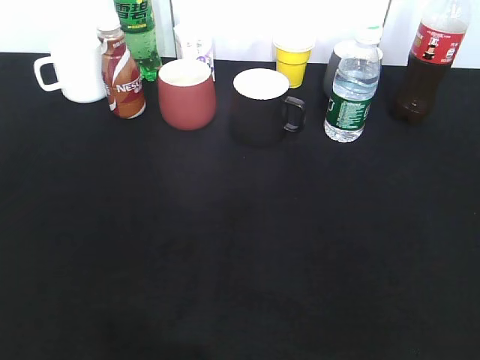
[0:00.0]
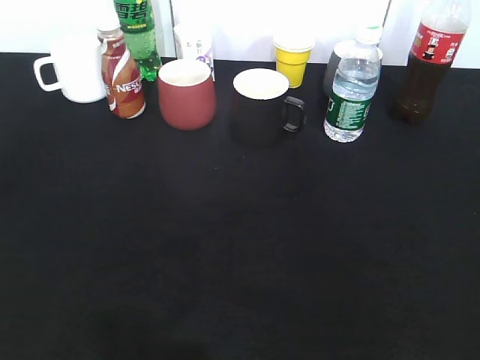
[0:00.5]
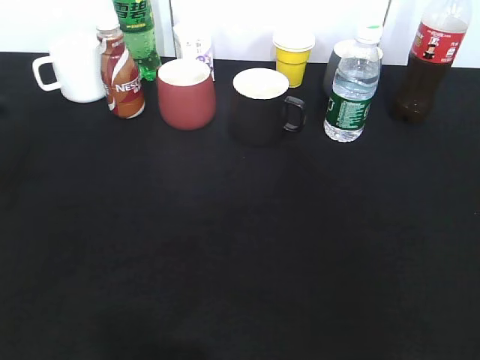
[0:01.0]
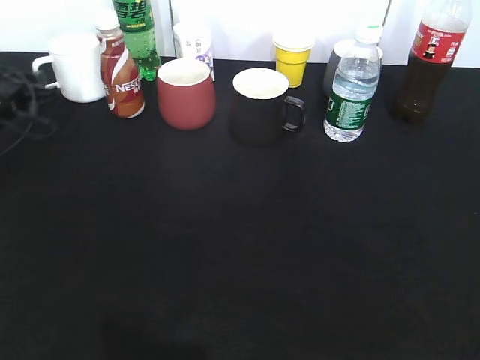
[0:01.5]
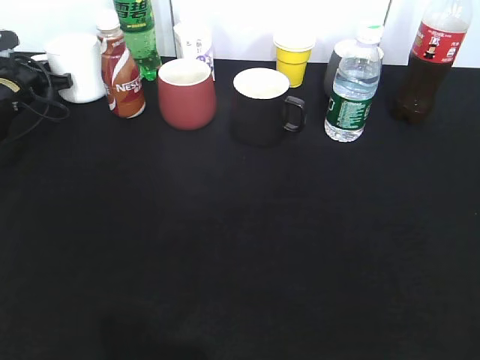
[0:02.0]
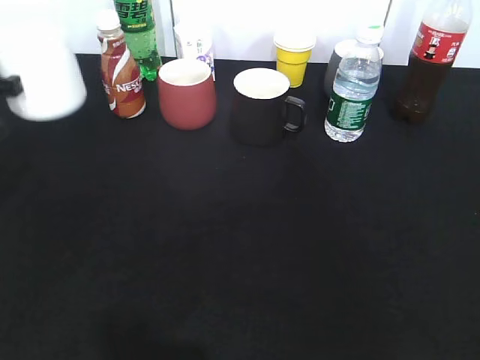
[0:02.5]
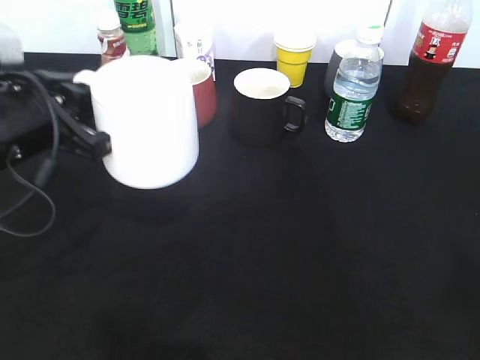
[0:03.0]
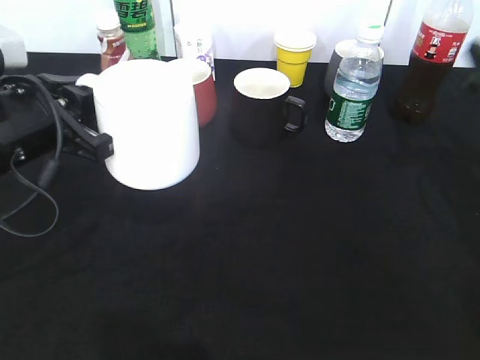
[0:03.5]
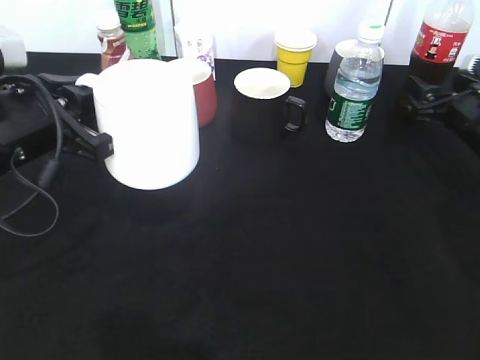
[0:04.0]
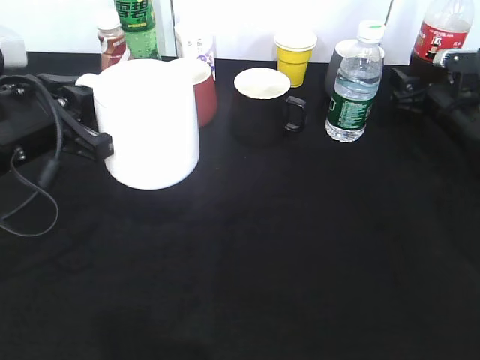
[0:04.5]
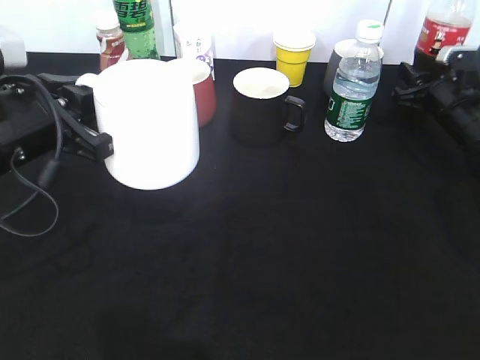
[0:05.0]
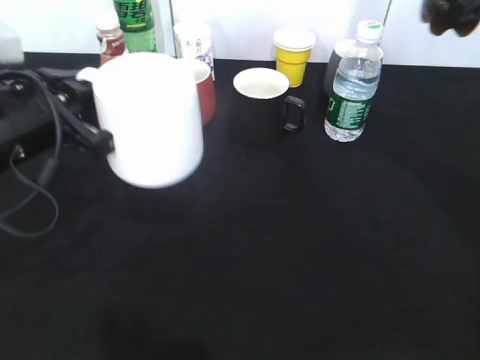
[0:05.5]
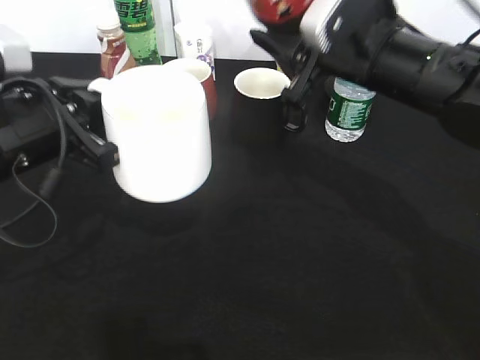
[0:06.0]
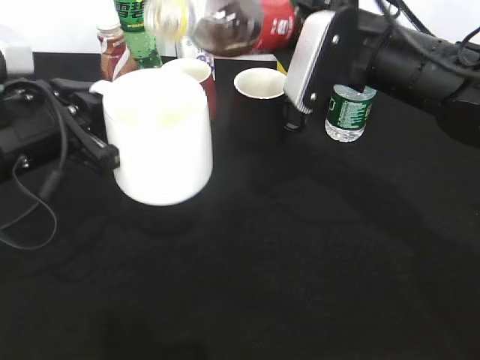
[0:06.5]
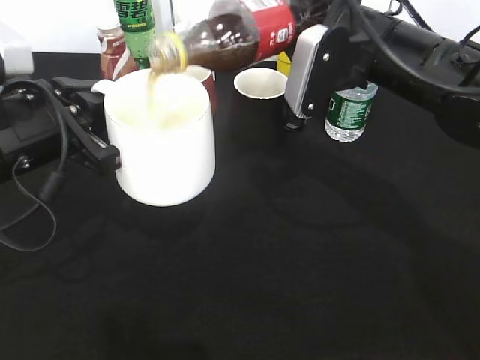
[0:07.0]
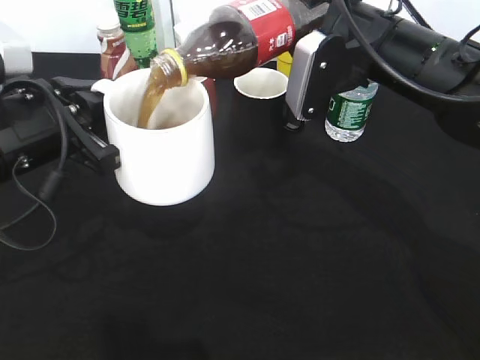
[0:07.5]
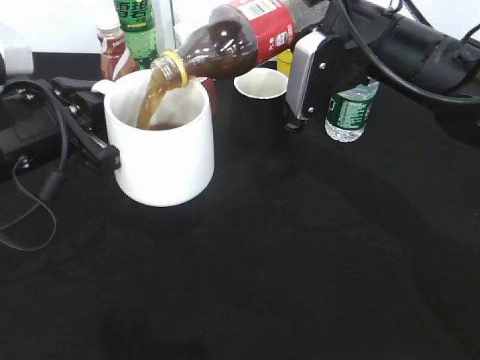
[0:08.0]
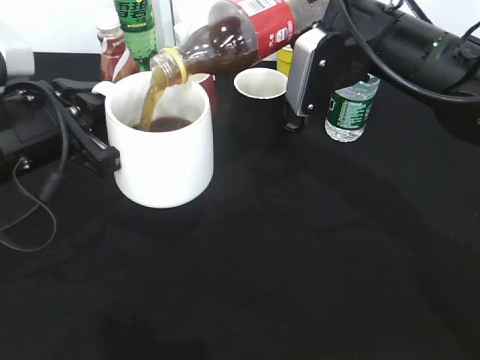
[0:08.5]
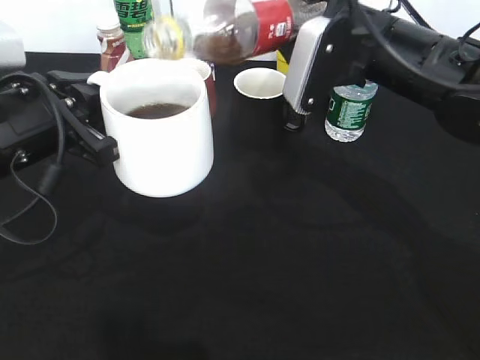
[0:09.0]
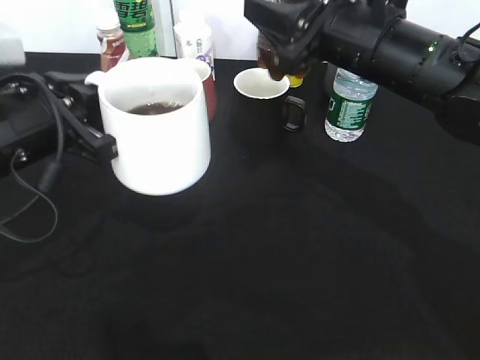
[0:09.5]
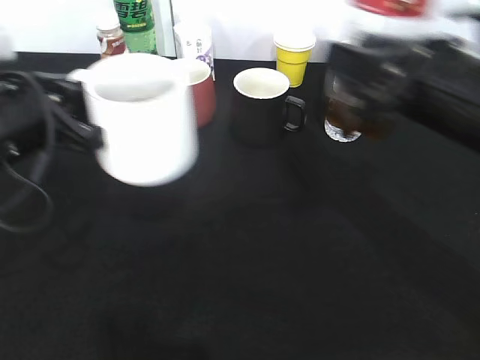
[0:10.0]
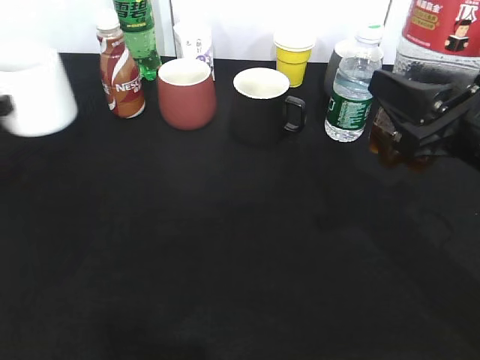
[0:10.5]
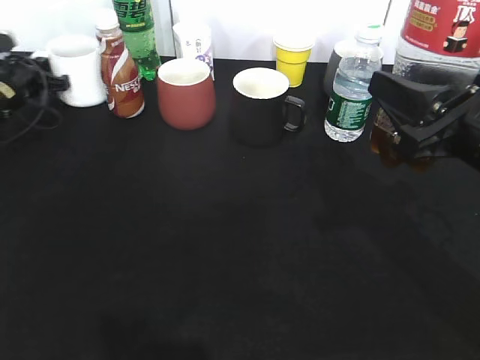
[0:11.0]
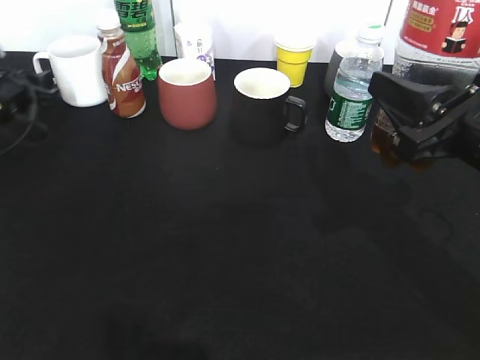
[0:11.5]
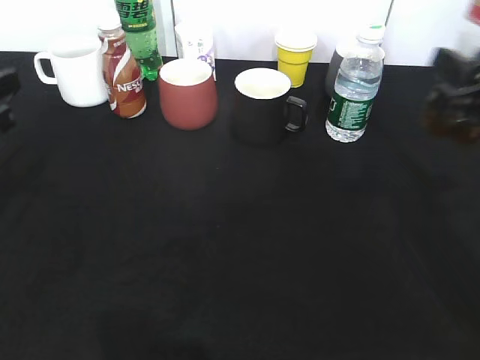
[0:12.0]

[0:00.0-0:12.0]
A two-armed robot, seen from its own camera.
Step, 0:00.0 to 0:01.5: Grasp the white cup with left gripper.
Step, 0:02.0 to 0:03.0: Lift the white cup with left gripper.
Step, 0:03.5 to 0:04.5: Grasp the bottle with cola with right gripper.
Step, 0:05.5 to 0:09.0: Pour the cola from bottle to cup with right gripper.
Step, 0:09.5 to 0:11.5: Place the white cup on the table with left gripper.
0:00.0 to 0:02.0: The left gripper goes about 50 cm forward, and closes up.
0:02.0 to 0:04.0: The right gripper shifts approximately 40 cm forward and downward. The left gripper is displaced backward, to the right and upward by roughly 30 cm.
0:04.0 to 0:06.0: The right gripper heads to the left and upward, covering some 20 cm, and closes its fingers.
0:08.0 to 0:10.0: The right gripper moves backward and to the right, some 10 cm.
0:10.0 to 0:12.0: The right gripper is displaced to the right by about 5 cm. The left gripper shifts some 10 cm to the left, goes forward and returns, some 25 cm each way, and opens up.

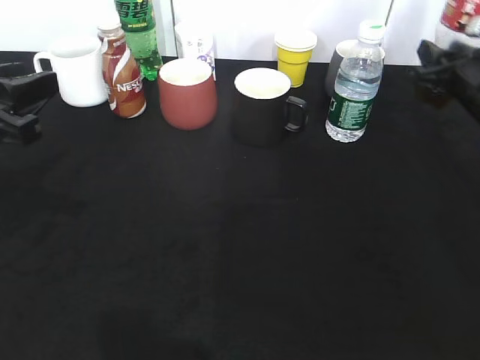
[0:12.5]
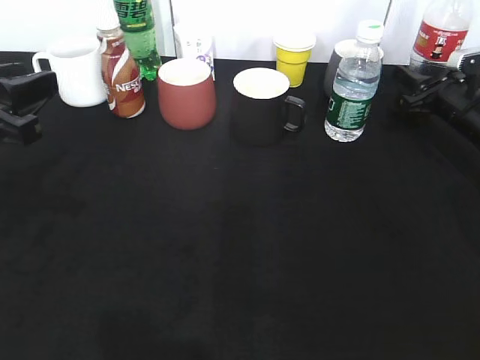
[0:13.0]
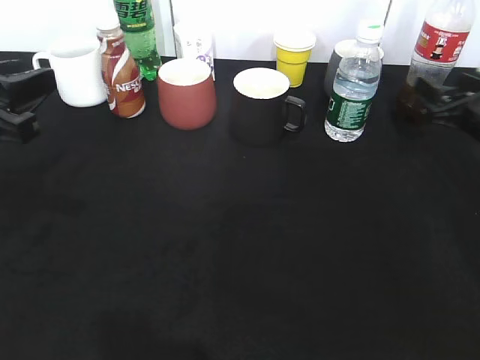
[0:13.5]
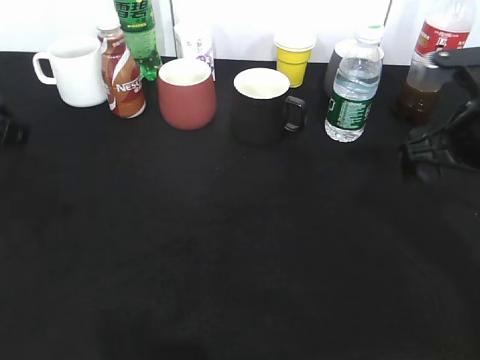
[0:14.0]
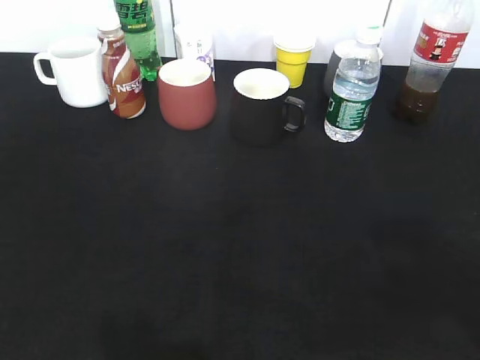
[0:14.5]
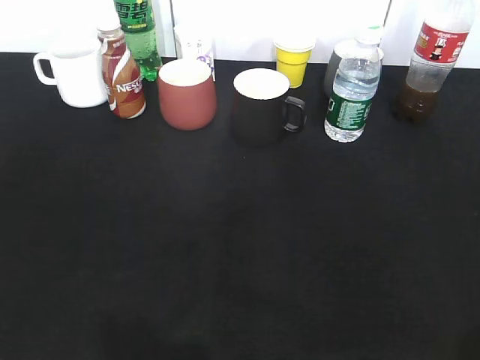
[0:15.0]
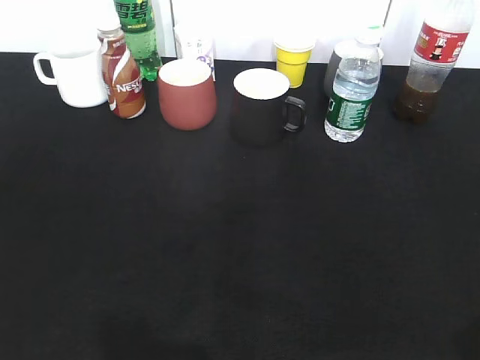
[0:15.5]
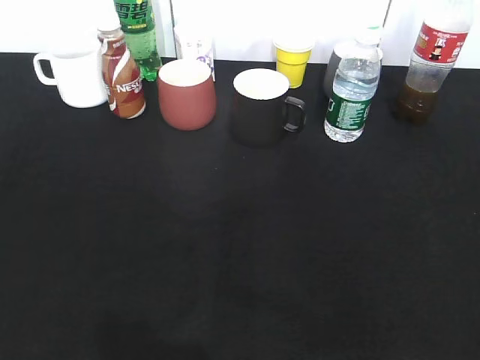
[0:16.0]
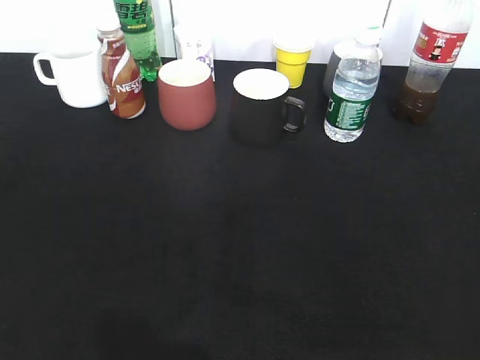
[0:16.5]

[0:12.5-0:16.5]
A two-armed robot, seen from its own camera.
Step, 0:12.5 to 0:14.0: Place the cola bottle on the table with right gripper.
0:12.5 to 0:14.5: The right gripper is displaced backward and upward by roughly 40 cm, and opens; the left gripper heads backward and upward, covering approximately 20 cm.

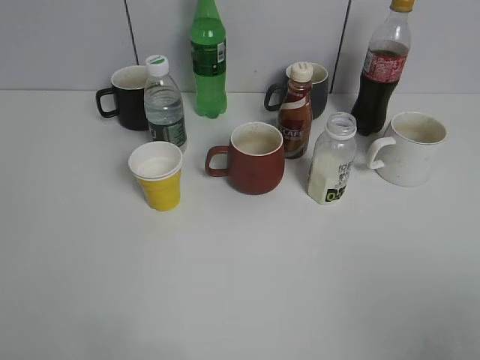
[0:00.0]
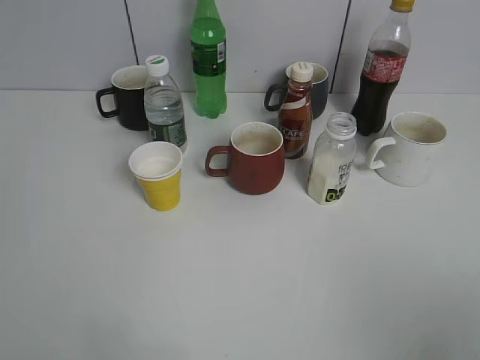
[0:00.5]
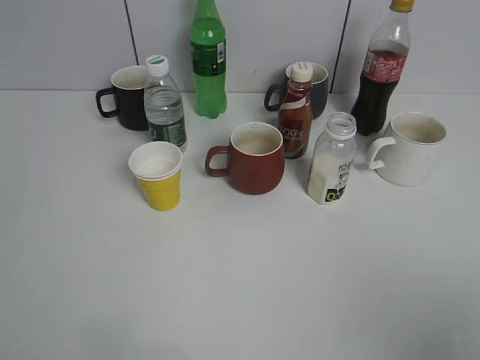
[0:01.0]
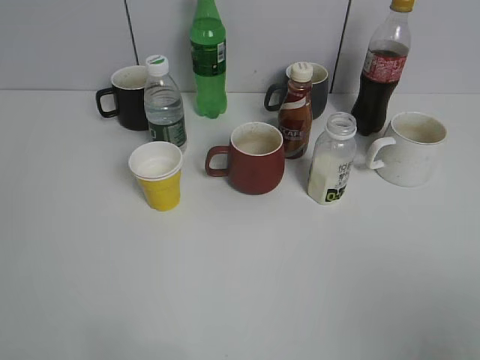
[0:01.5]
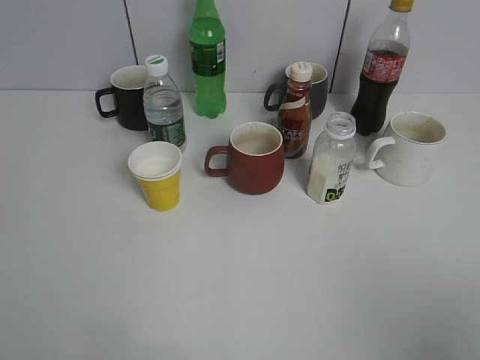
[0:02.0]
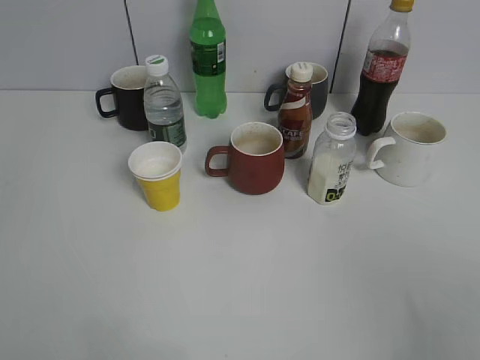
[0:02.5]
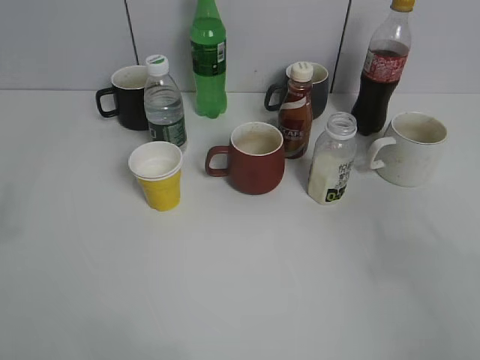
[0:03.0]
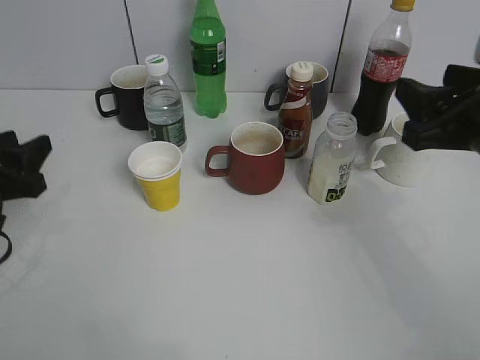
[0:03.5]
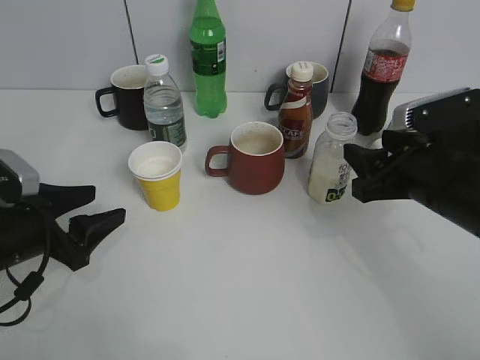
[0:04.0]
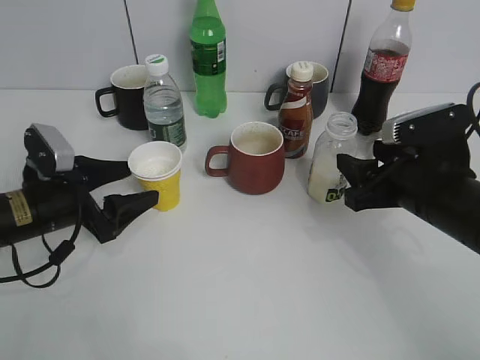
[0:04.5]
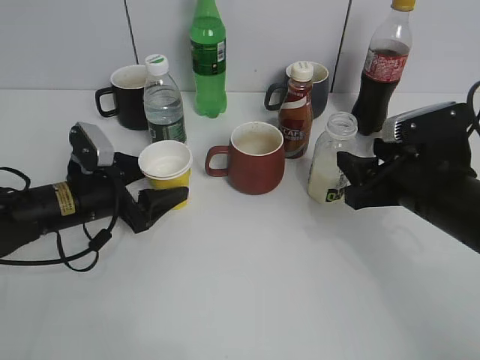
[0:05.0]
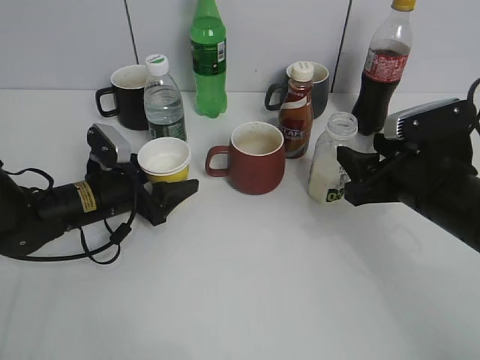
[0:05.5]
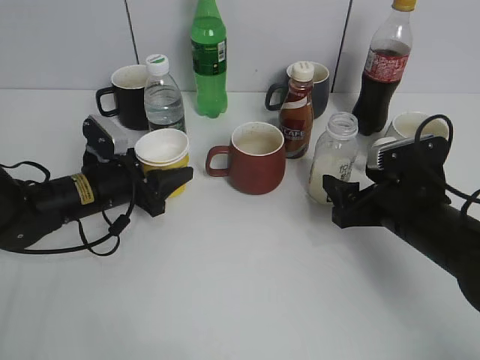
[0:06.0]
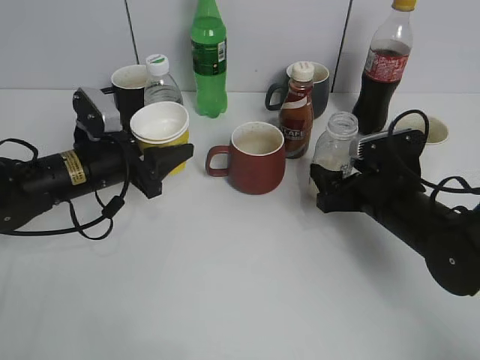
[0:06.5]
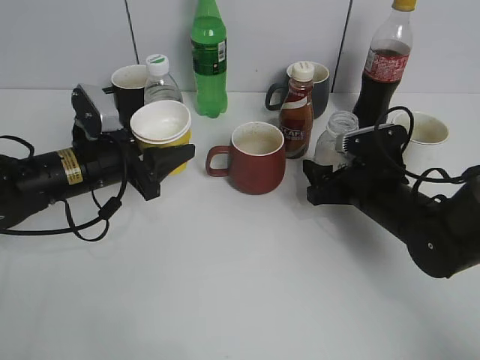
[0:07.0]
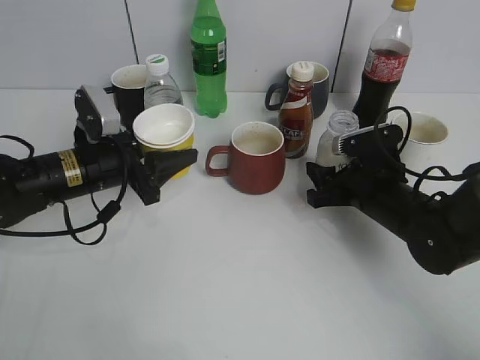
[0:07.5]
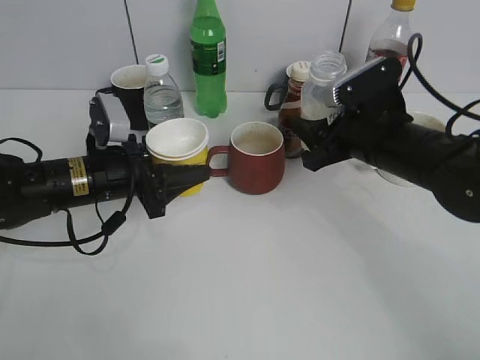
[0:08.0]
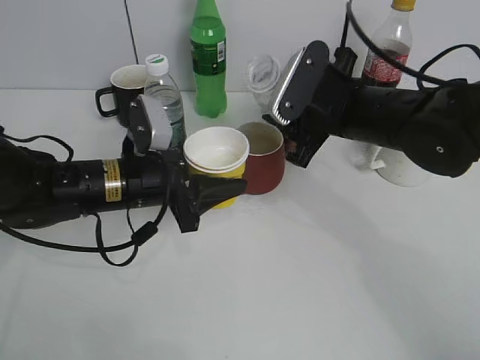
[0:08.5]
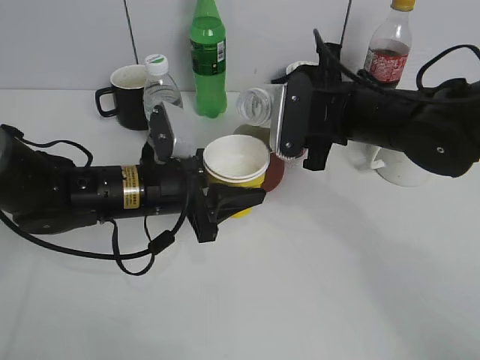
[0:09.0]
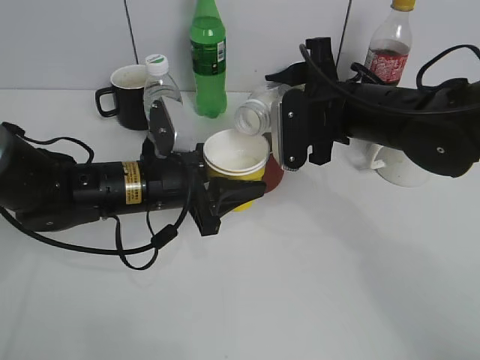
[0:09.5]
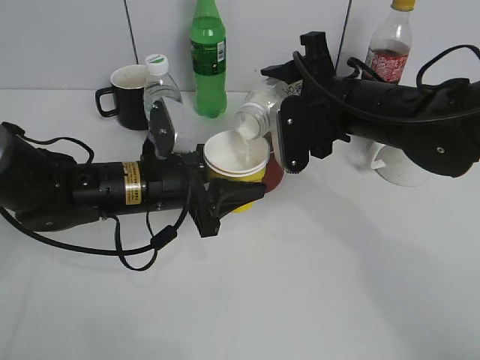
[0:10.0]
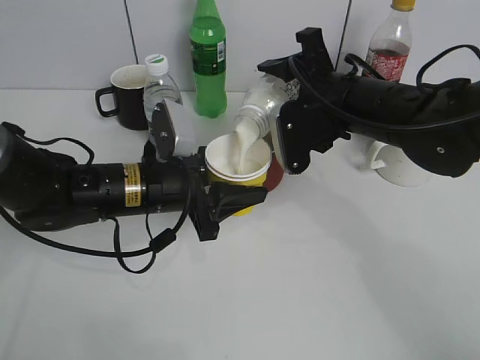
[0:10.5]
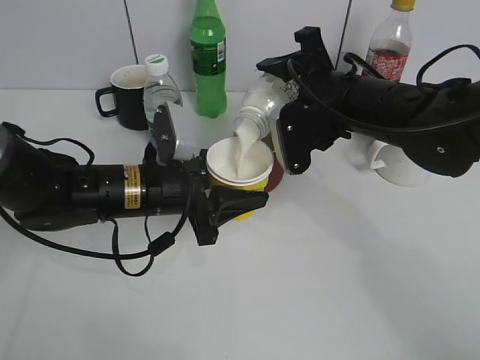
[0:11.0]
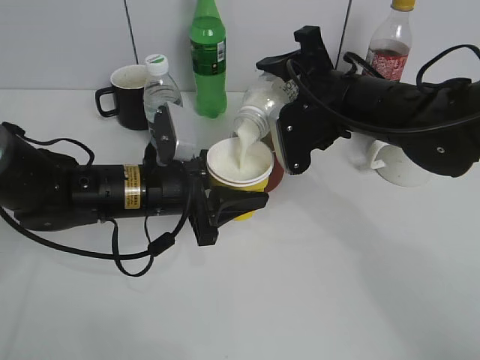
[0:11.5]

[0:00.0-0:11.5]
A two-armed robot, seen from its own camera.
Step, 0:03.5 to 0:05.5: Grasp the yellow paper cup with left gripper.
Step, 0:06.5 to 0:07.0: Grasp the bottle with yuexian Milk with right gripper.
0:02.0 to 0:04.0: Both grippers travel together forward and downward, approximately 30 cm. The right gripper closes its fingers.
0:04.0 to 0:06.0: The left gripper moves forward and to the right, some 15 cm, and closes up; the right gripper moves downward, approximately 5 cm, and opens its fingers.
0:06.0 to 0:07.5: The left gripper ends up some 5 cm from where it was. Meanwhile the right gripper heads forward, covering approximately 5 cm, and closes.
0:07.5 to 0:09.5: The right gripper travels upward and to the left by about 15 cm. Meanwhile the left gripper travels to the right by some 10 cm.
0:09.5 to 0:11.5: The grippers make only small movements.
